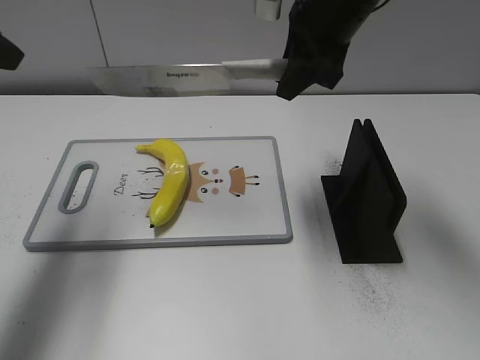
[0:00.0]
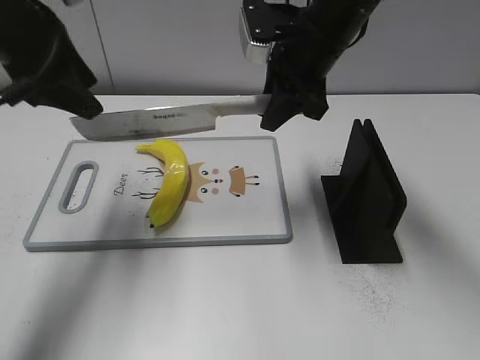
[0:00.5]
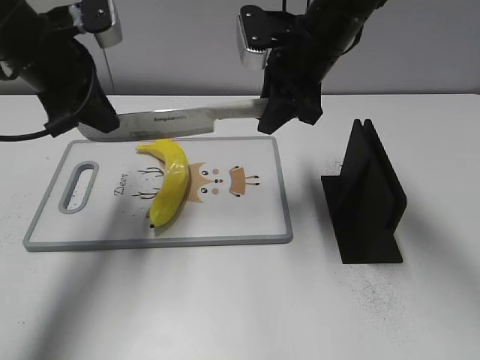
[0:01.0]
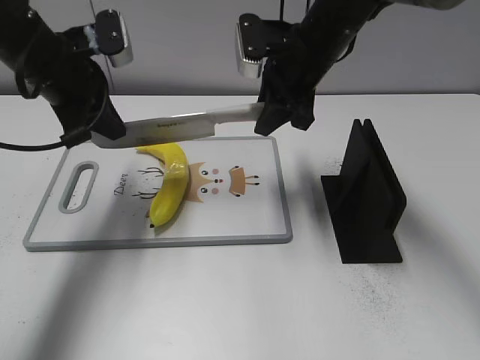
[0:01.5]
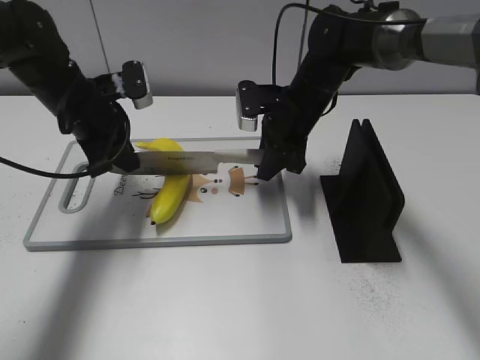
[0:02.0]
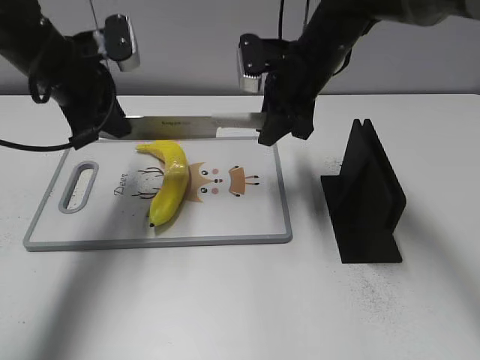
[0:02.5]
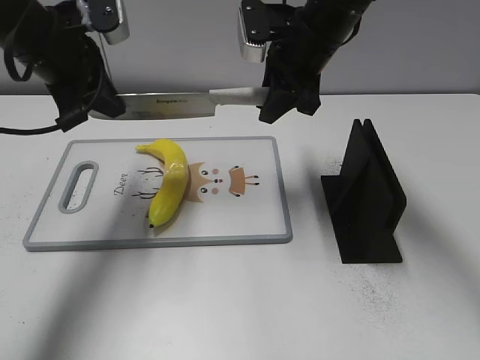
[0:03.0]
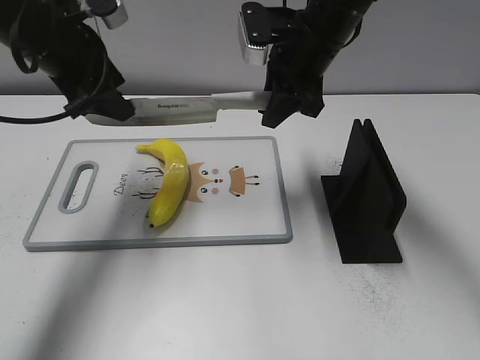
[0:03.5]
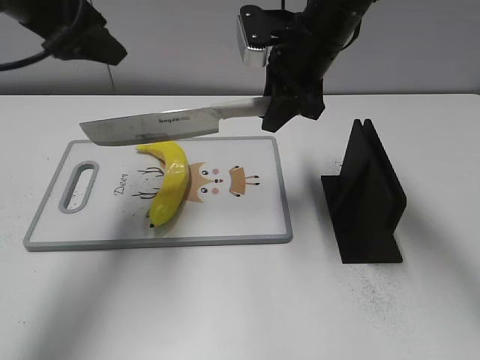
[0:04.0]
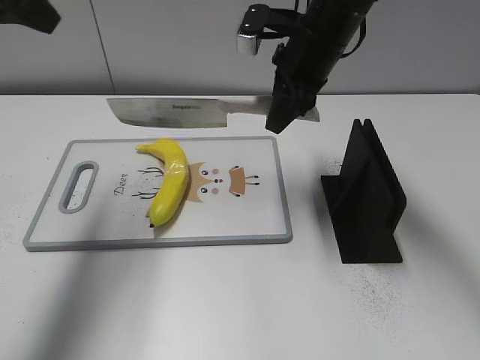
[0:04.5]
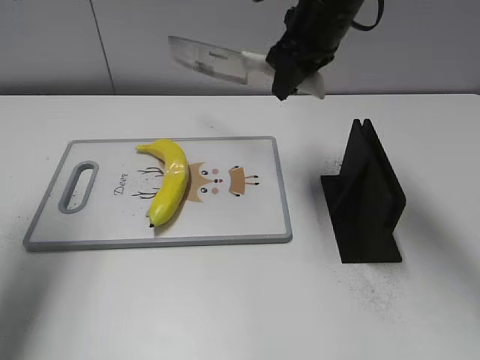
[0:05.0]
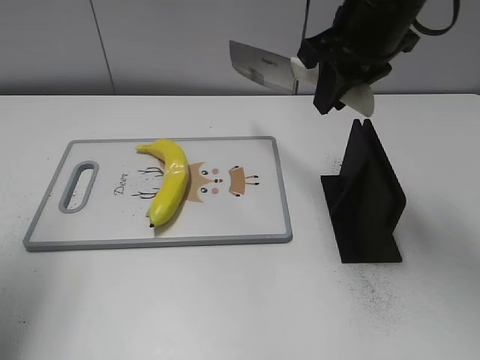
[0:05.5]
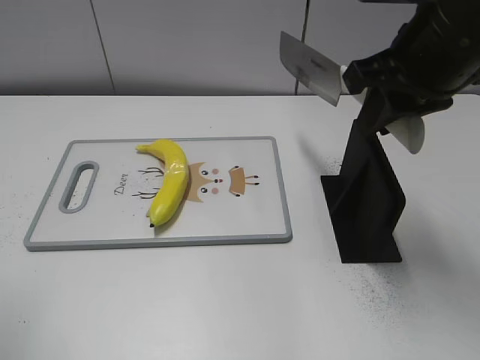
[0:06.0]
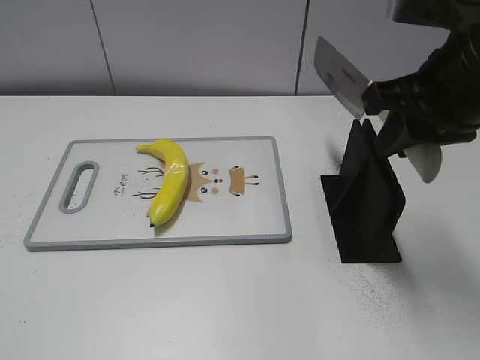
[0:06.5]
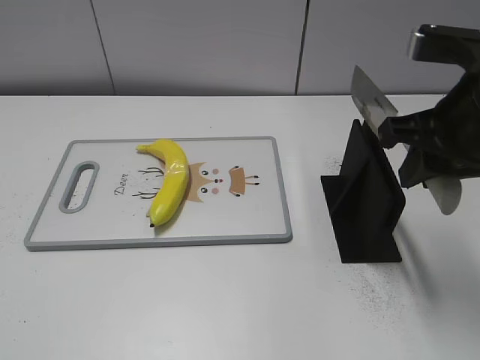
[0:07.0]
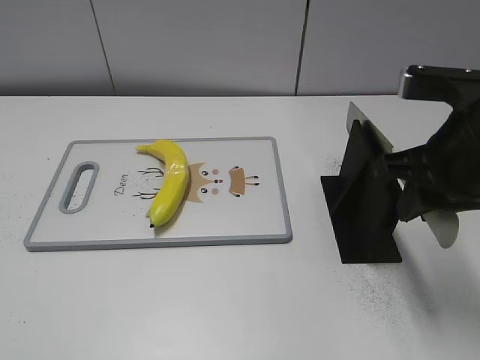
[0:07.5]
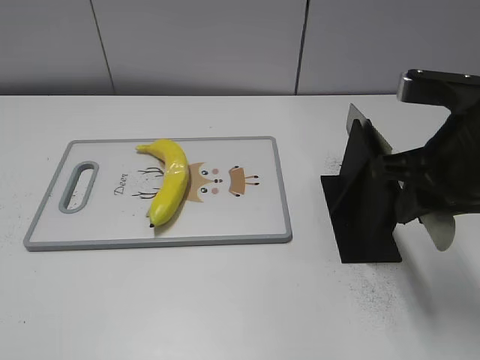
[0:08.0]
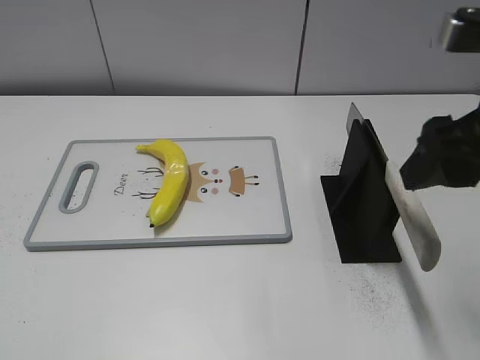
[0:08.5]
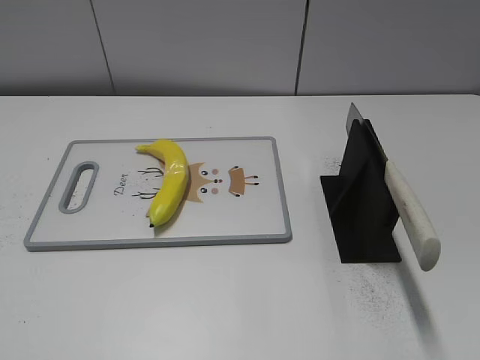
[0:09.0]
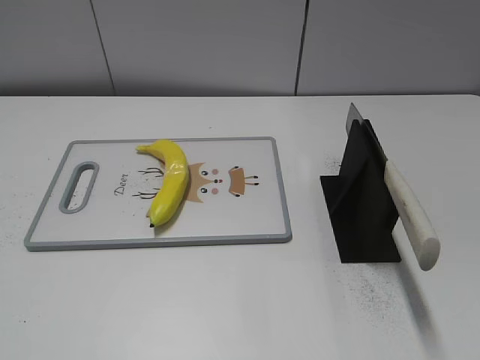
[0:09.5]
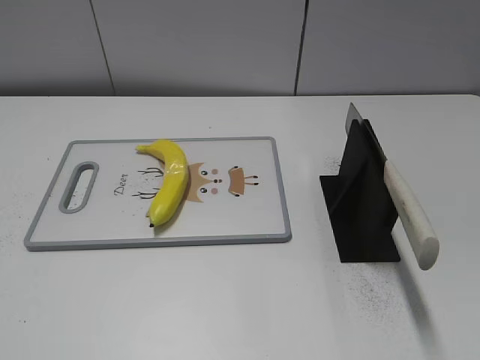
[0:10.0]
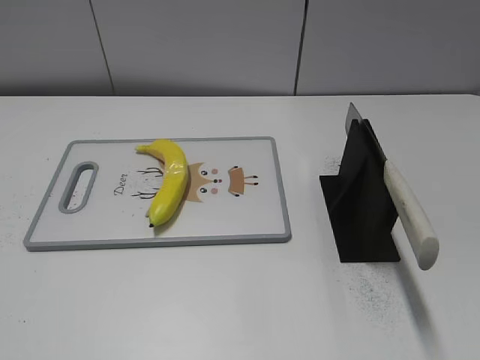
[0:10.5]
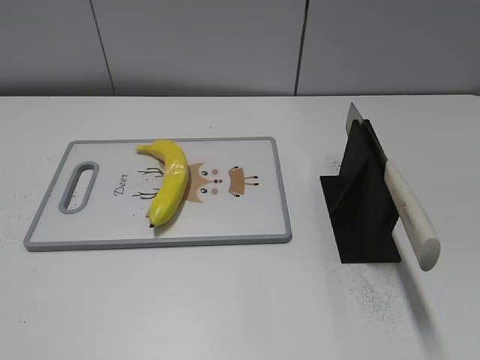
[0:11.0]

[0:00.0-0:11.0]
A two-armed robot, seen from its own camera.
Task of the whole recording: cut plastic banana.
Step, 0:00.0 to 0:03.0: Hold the blade with your left hand.
Step, 0:05.0 to 0:06.0: Secure the blade with your left hand.
Step, 0:06.5 to 0:11.0: Place the knife on the storage rack with your right hand.
0:00.0 to 0:02.0: The right gripper heads downward, covering some 15 cm, while the left gripper goes about 20 cm downward, forward and to the right, and closes up.
0:02.0 to 0:03.5: The two grippers go roughly 10 cm upward. The left gripper opens up.
0:03.5 to 0:05.5: The left gripper shifts about 20 cm backward, to the left and upward, while the right gripper travels upward and backward by some 10 cm.
0:05.5 to 0:07.5: The right gripper travels backward, to the right and downward by approximately 15 cm. Meanwhile the left gripper heads backward, covering approximately 25 cm.
0:07.5 to 0:09.0: The right gripper moves backward, upward and to the right, some 15 cm, and opens.
